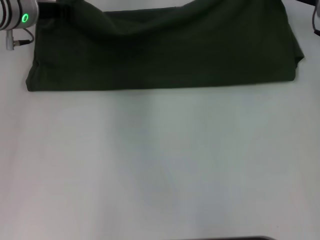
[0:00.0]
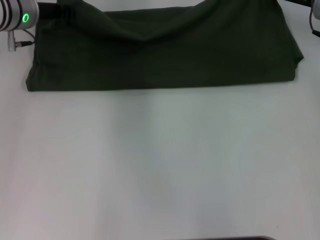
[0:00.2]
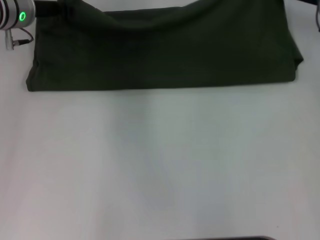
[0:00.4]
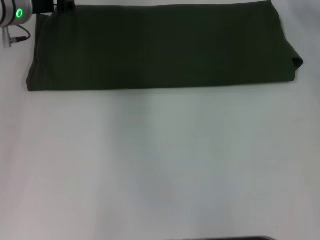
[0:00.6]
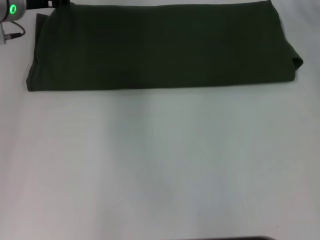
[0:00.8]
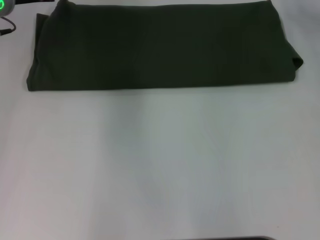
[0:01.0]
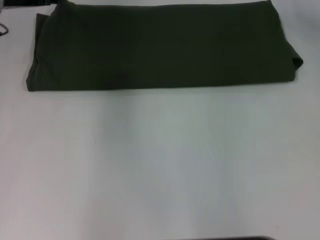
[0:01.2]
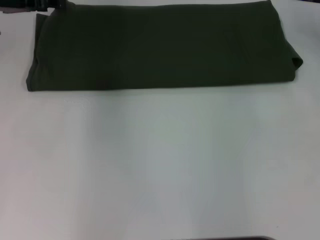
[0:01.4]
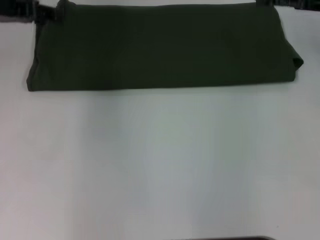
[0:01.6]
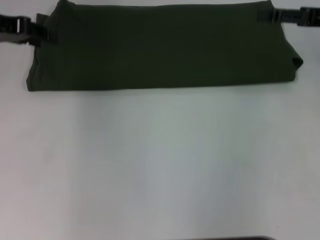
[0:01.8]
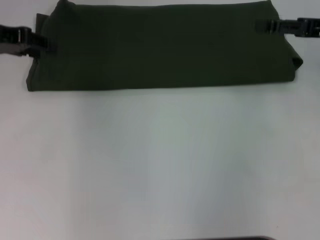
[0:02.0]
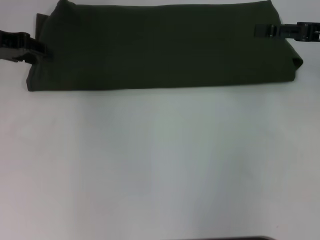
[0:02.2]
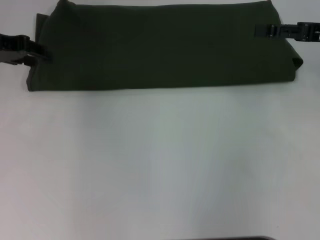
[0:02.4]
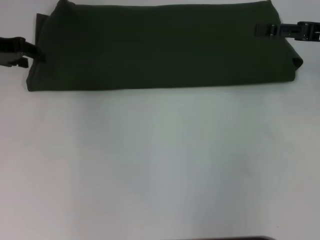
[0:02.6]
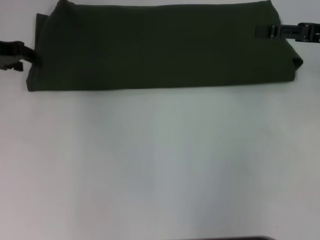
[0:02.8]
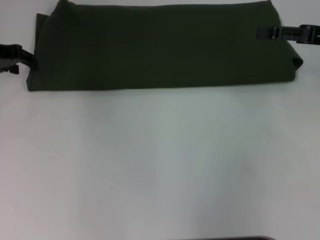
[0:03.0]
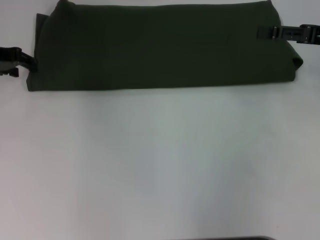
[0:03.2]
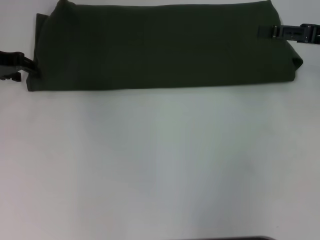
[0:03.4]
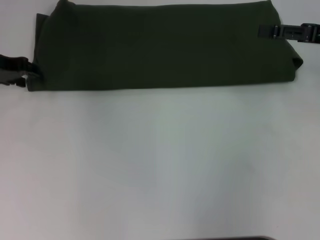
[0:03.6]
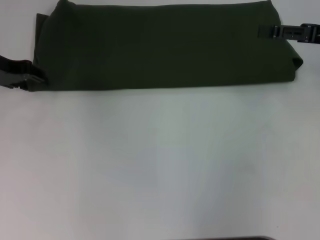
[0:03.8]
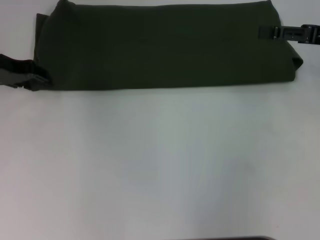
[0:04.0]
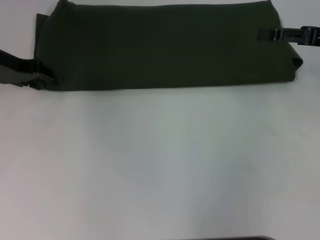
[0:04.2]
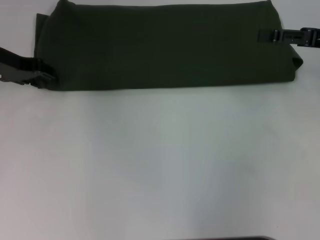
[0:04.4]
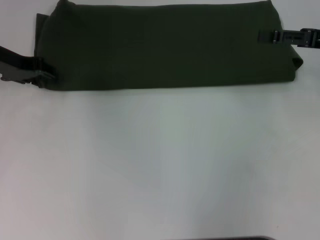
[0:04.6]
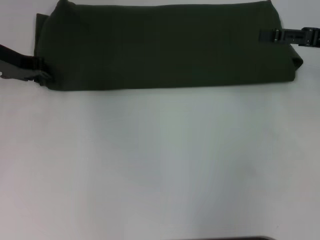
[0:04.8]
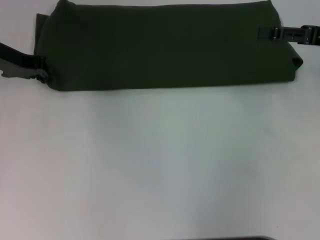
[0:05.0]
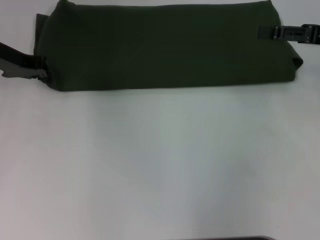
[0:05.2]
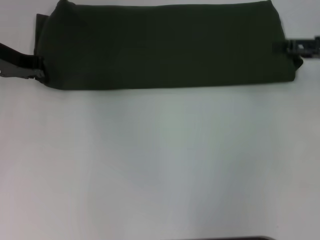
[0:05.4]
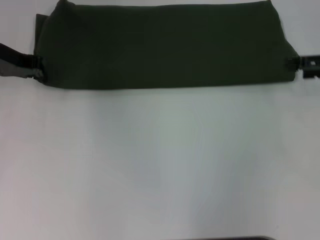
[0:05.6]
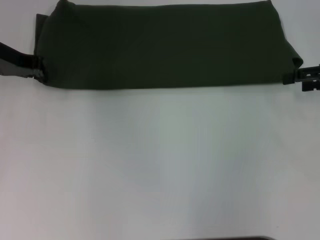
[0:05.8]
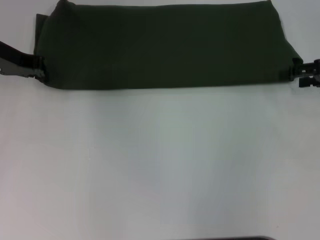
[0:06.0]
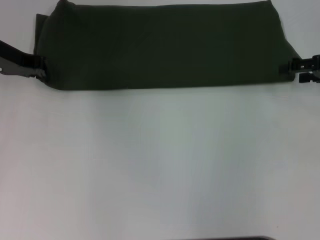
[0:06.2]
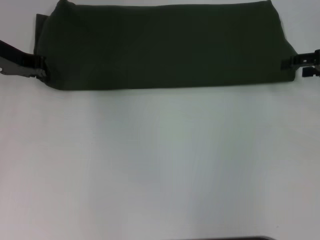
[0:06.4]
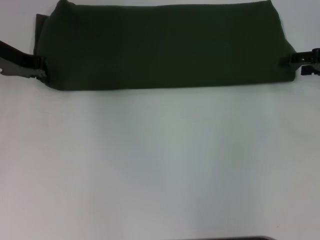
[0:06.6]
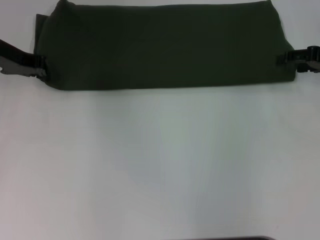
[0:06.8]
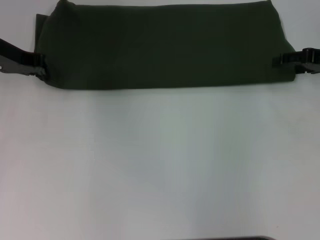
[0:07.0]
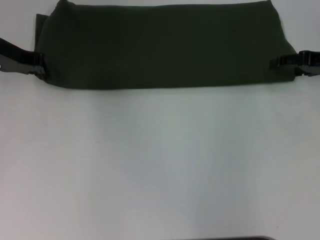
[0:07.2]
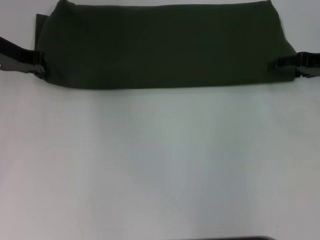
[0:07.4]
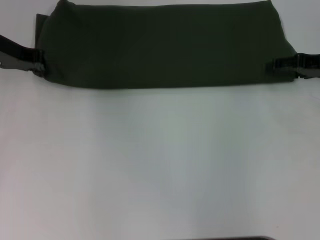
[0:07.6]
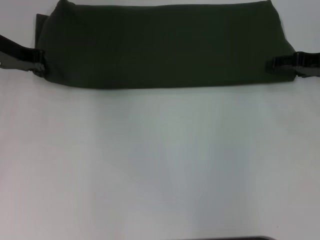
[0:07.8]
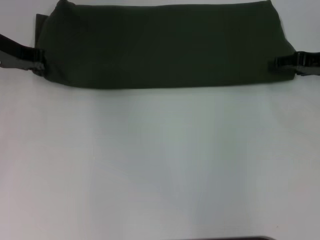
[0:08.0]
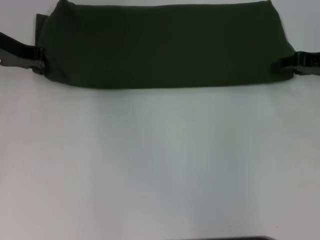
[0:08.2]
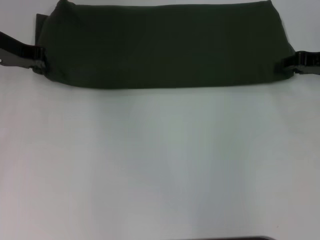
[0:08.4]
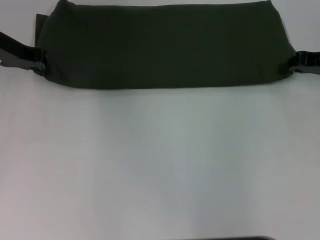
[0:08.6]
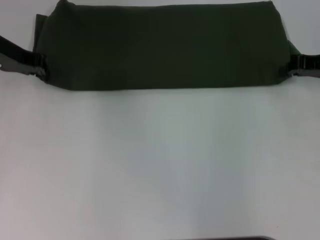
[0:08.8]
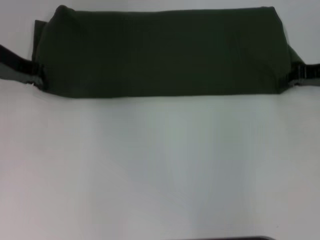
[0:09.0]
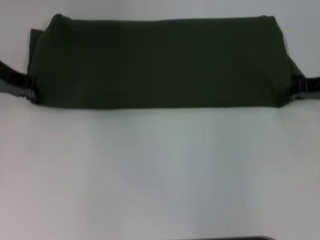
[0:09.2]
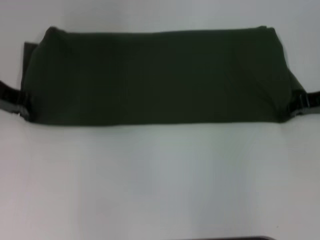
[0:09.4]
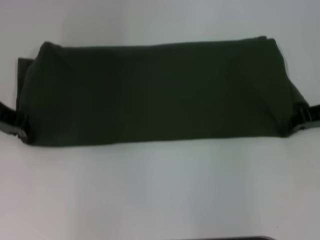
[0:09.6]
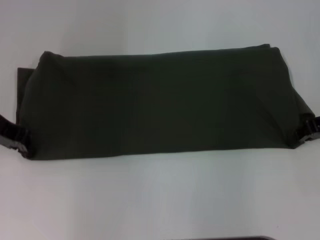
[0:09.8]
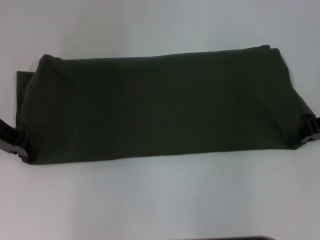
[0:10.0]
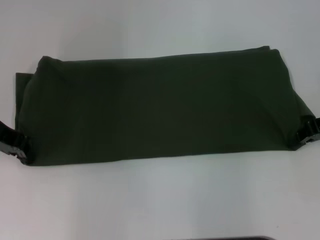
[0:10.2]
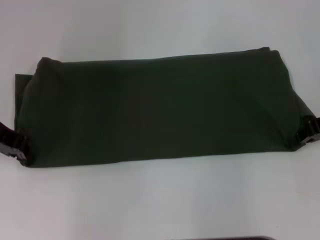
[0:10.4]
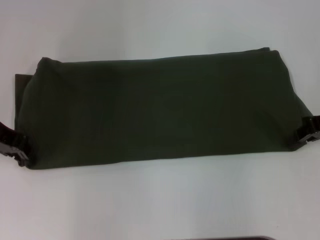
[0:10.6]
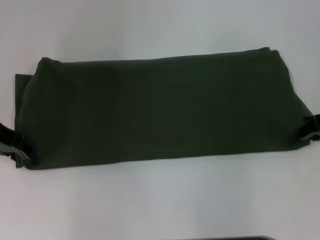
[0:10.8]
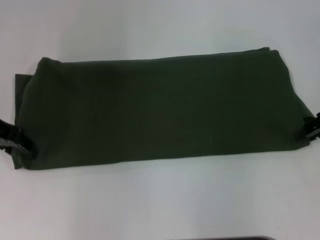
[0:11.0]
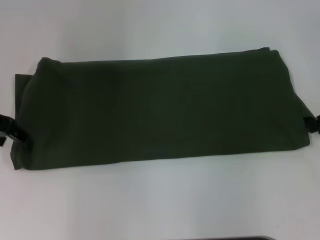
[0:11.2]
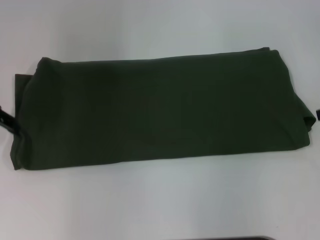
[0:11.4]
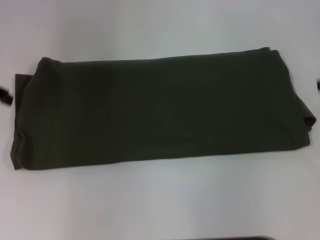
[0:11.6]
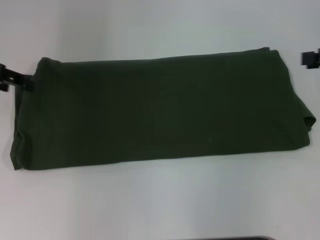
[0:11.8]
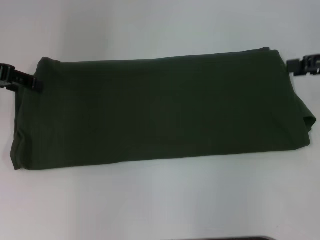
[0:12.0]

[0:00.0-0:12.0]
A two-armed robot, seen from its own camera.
Step, 0:00.8 to 0:10.4: Pull the clothes with your left hand.
Step, 0:00.8 to 0:10.4: Pull the clothes with your right hand.
0:00.0 to 0:01.6: The right gripper ends up roughly 10 cm from where it was, and opens, while the left gripper shifts roughly 10 cm to the left and upward, and opens up.
0:01.6 to 0:03.0: The left gripper shifts some 5 cm downward.
0:03.0 to 0:04.4: The grippers move only a little.
0:04.4 to 0:06.0: The left gripper closes up.
0:06.0 to 0:07.6: The grippers move only a little.
0:07.6 to 0:09.0: The right gripper closes.
0:09.0 to 0:10.4: The left gripper moves backward, some 5 cm.
0:10.4 to 0:12.0: The left gripper ends up approximately 5 cm from where it was, and opens its fingers. Meanwhile the right gripper goes about 5 cm upward, and opens its fingers.

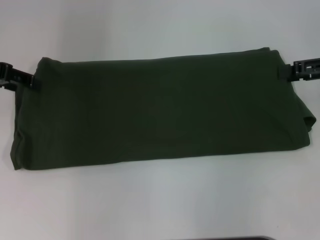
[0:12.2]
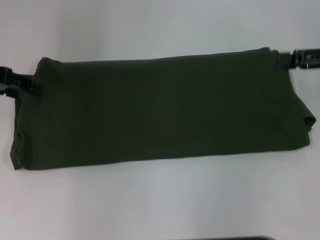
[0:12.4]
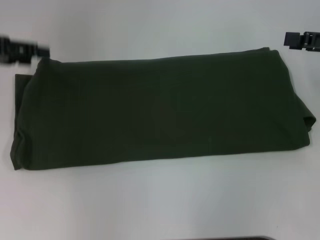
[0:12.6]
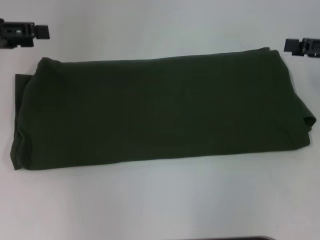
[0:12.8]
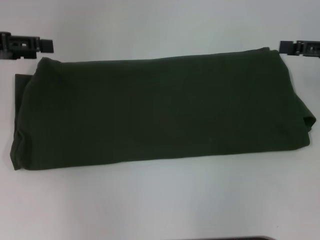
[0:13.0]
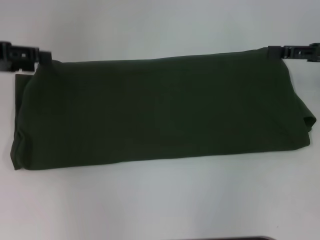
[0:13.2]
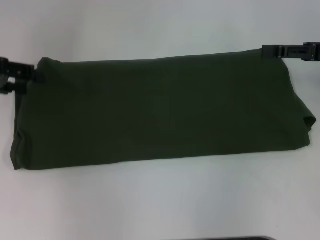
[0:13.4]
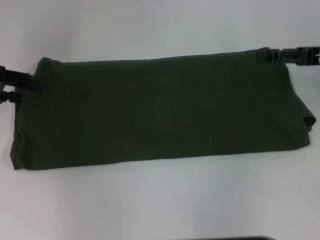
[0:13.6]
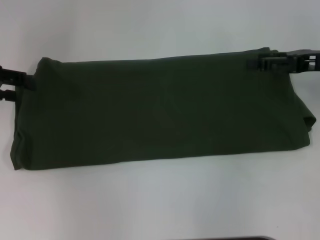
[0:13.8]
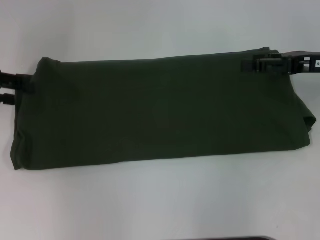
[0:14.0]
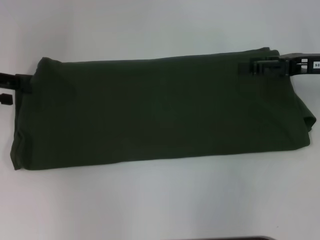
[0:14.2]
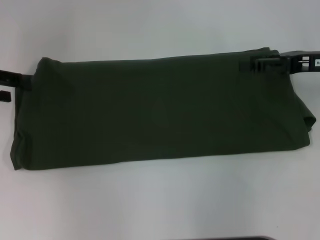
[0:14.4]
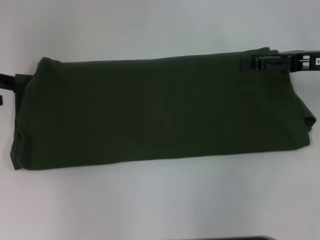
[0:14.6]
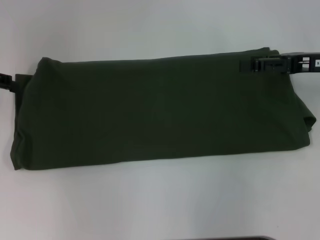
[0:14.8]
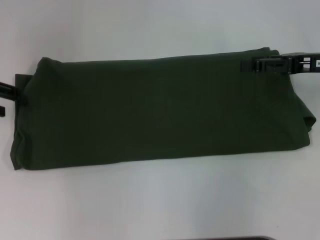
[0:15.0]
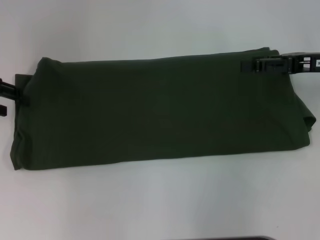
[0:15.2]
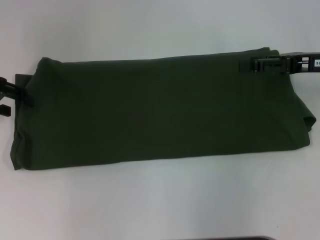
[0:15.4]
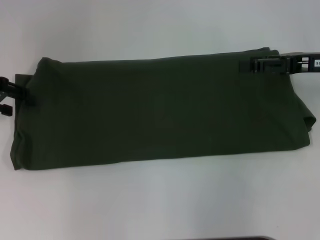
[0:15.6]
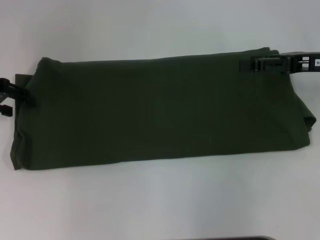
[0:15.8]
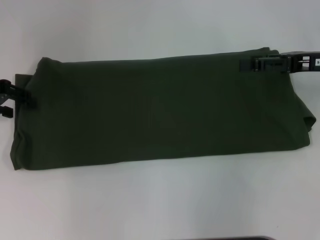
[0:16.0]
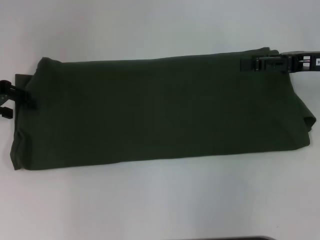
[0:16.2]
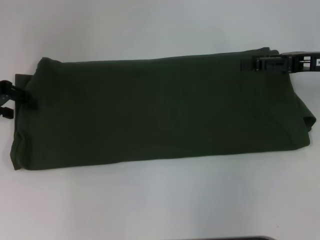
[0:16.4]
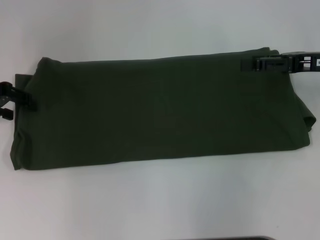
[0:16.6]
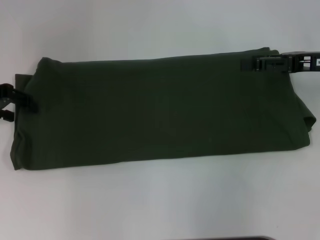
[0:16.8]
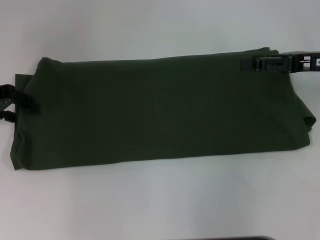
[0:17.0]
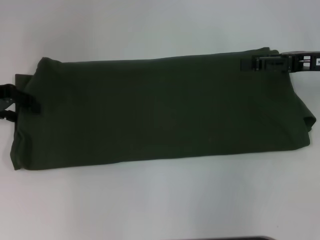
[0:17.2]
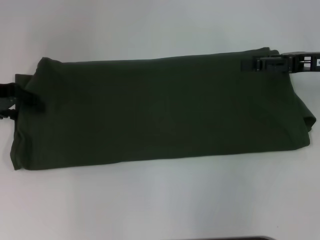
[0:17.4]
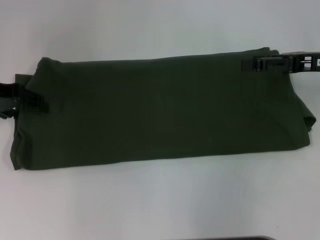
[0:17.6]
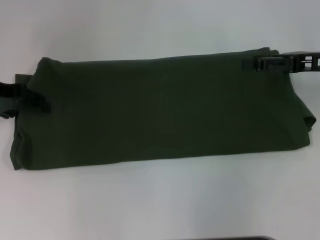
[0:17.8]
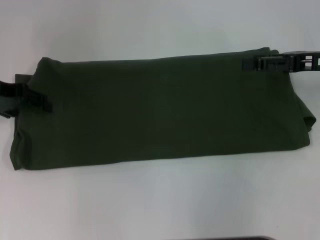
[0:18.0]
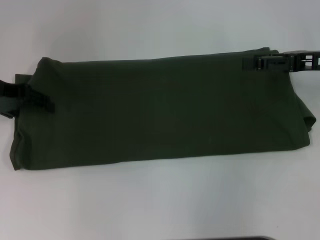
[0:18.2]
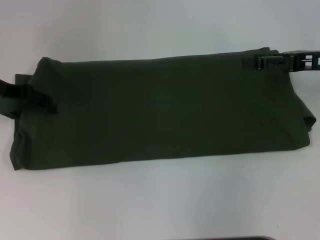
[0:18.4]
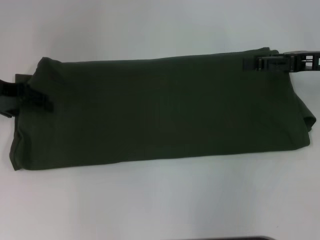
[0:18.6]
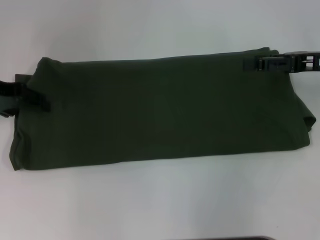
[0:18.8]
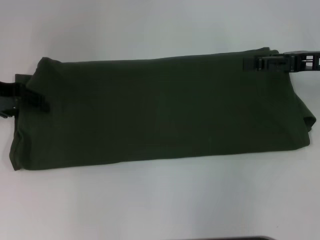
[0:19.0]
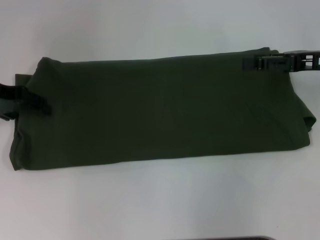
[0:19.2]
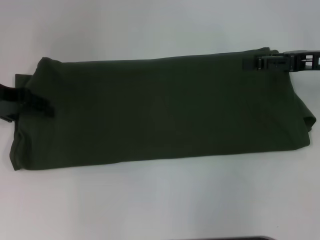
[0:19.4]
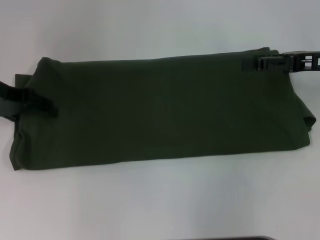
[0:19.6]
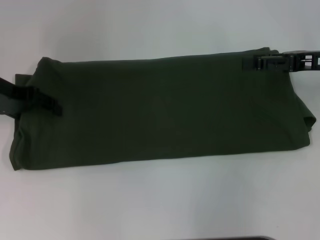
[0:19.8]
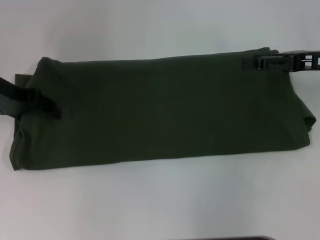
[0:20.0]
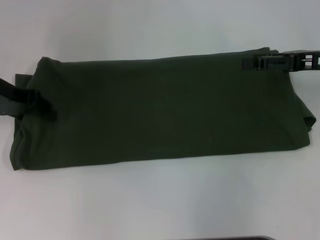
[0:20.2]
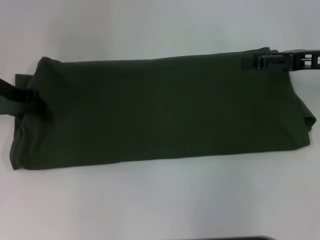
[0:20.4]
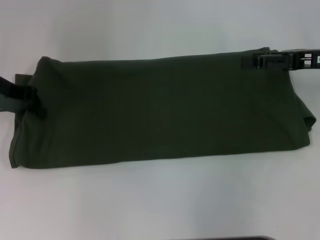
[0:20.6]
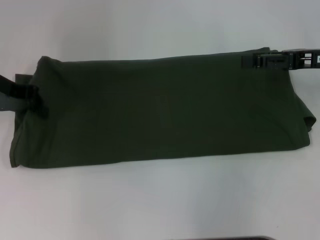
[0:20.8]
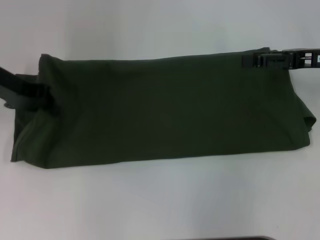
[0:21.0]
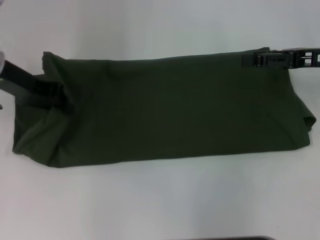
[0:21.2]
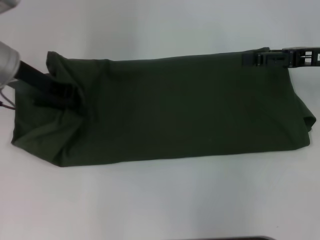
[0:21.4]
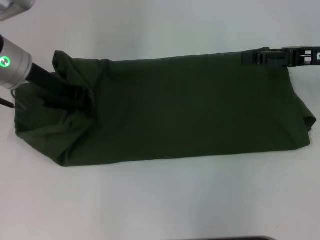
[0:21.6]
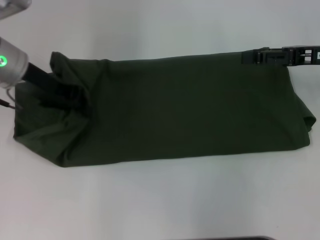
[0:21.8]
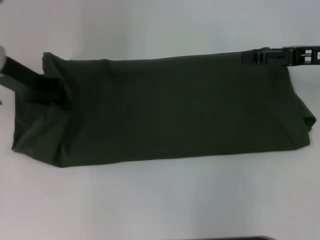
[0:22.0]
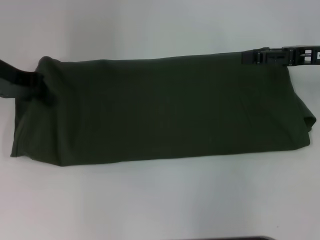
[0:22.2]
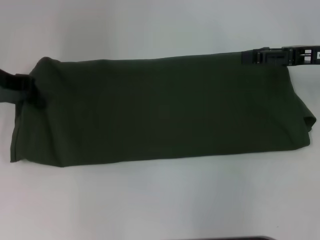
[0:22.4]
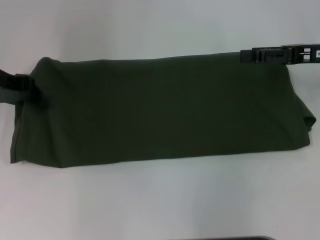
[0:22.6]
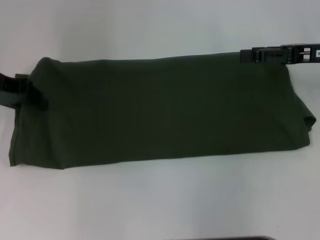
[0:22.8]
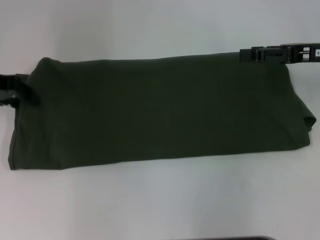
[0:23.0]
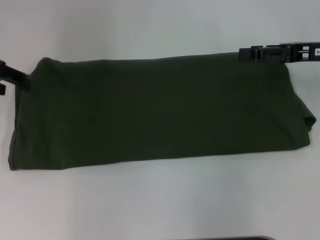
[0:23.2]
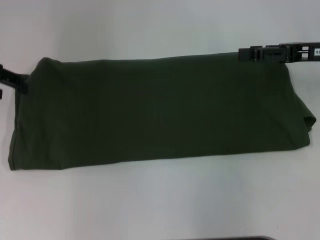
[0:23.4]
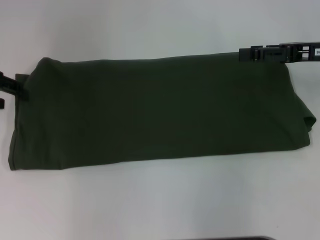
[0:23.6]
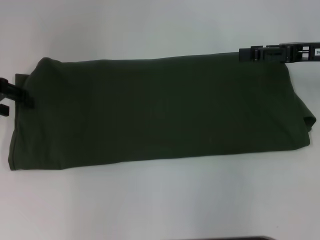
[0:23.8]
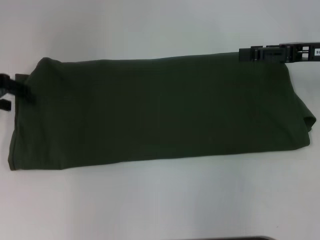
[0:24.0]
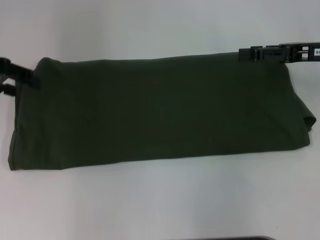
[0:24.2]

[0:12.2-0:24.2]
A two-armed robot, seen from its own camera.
0:13.8 to 0:15.2: The grippers move only a little.
0:18.2 to 0:19.8: Both grippers stay put.
0:19.8 to 0:21.2: The left gripper closes up.
0:21.2 to 0:22.6: The grippers make only small movements.
0:22.6 to 0:24.2: The left gripper opens its fingers.
